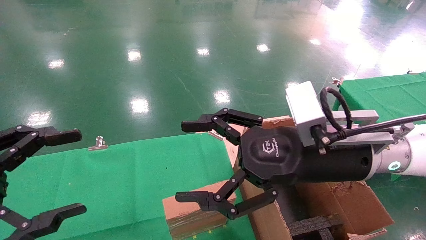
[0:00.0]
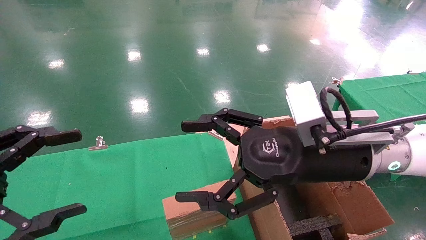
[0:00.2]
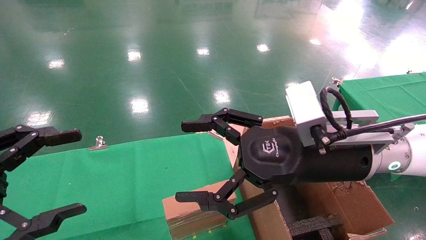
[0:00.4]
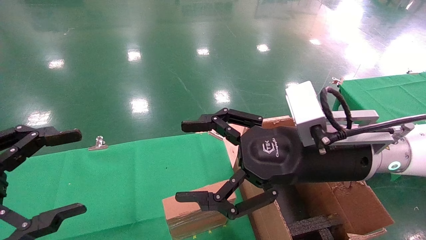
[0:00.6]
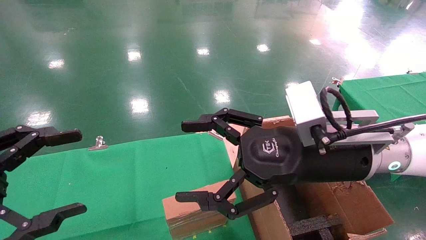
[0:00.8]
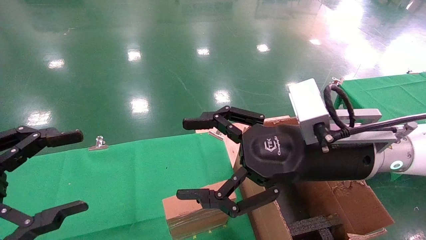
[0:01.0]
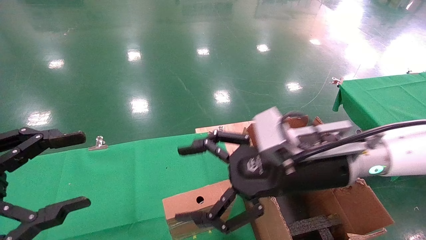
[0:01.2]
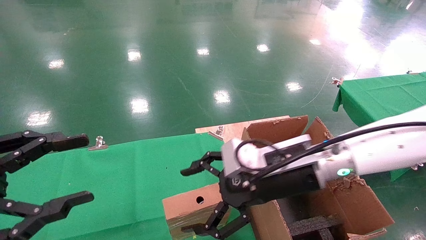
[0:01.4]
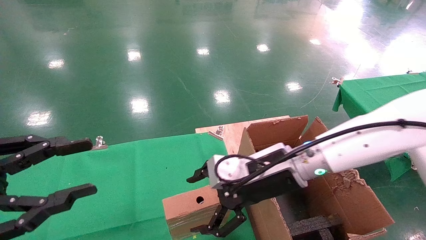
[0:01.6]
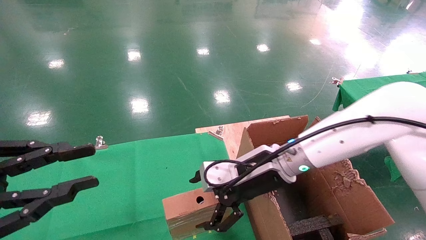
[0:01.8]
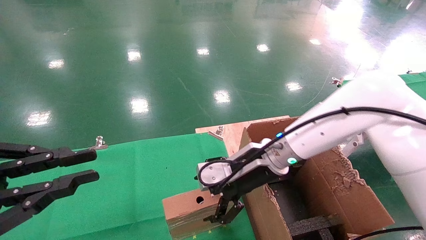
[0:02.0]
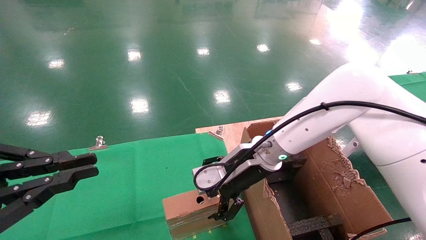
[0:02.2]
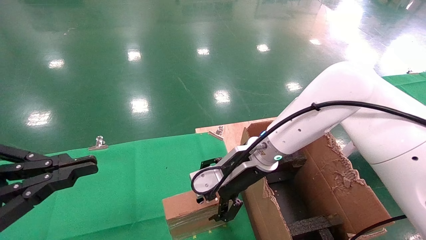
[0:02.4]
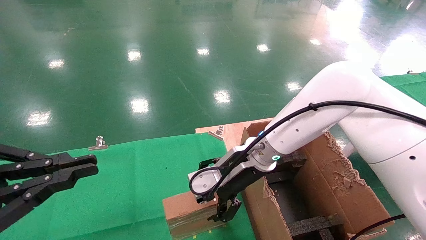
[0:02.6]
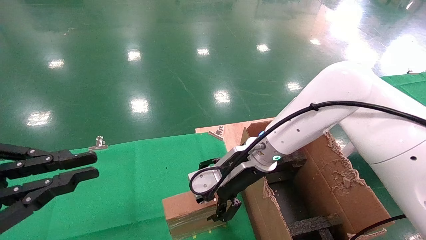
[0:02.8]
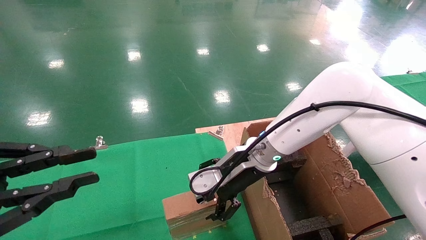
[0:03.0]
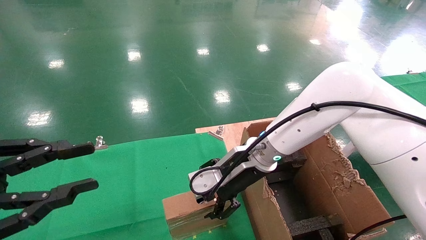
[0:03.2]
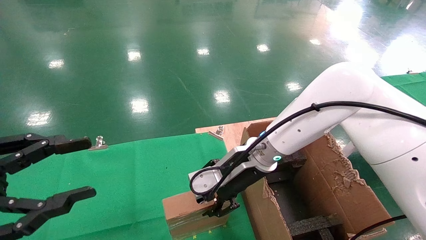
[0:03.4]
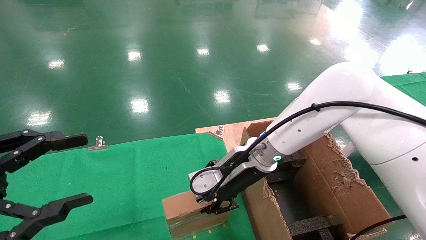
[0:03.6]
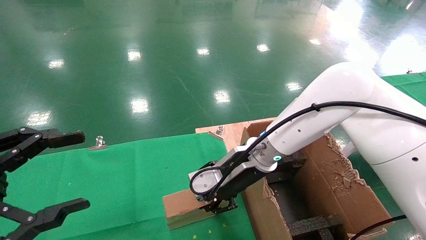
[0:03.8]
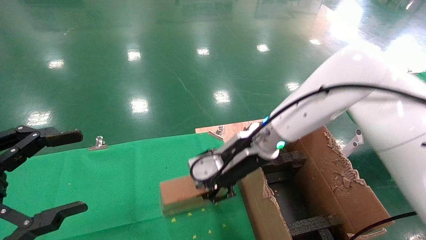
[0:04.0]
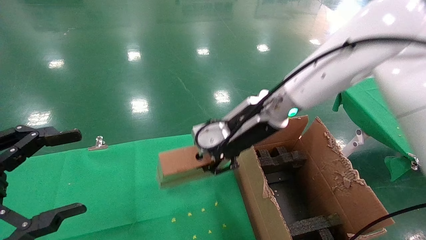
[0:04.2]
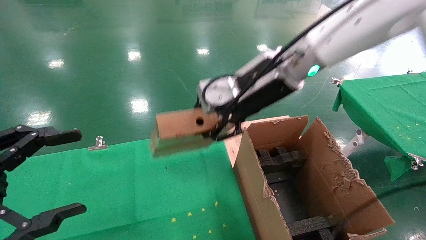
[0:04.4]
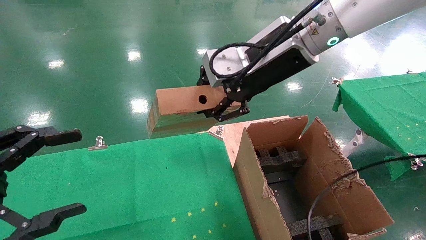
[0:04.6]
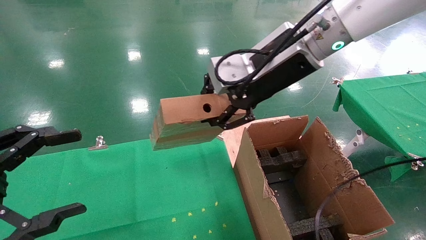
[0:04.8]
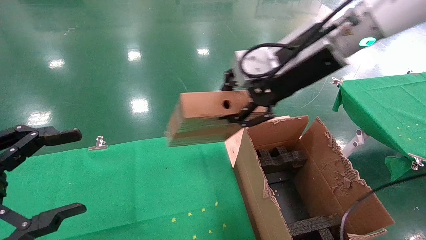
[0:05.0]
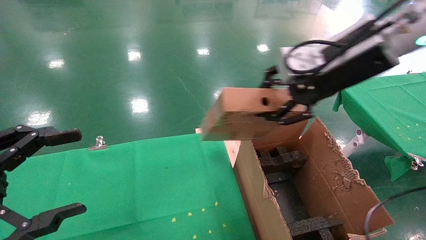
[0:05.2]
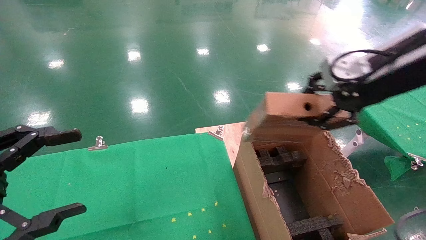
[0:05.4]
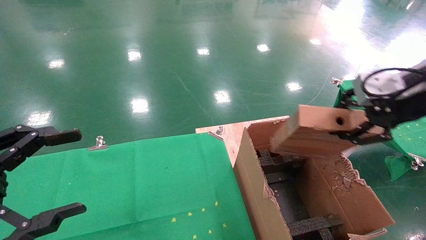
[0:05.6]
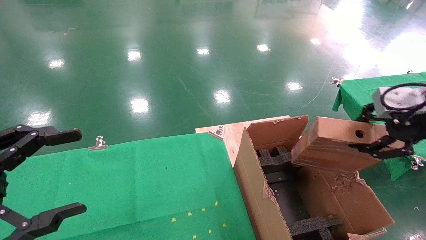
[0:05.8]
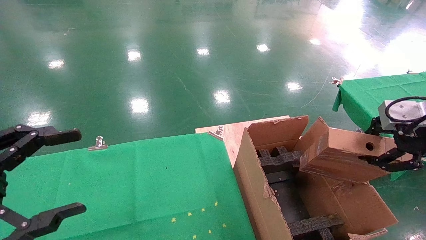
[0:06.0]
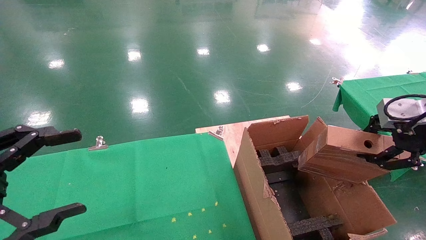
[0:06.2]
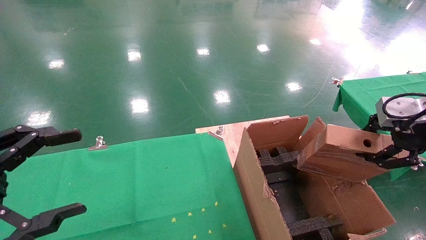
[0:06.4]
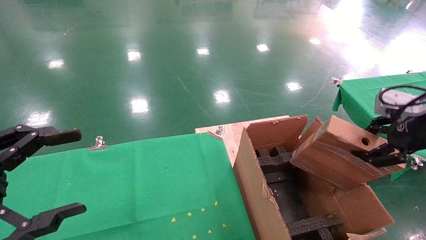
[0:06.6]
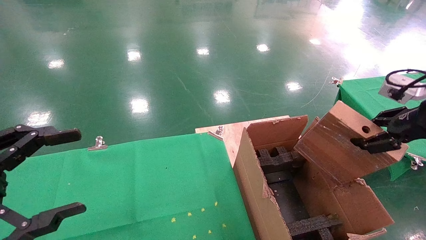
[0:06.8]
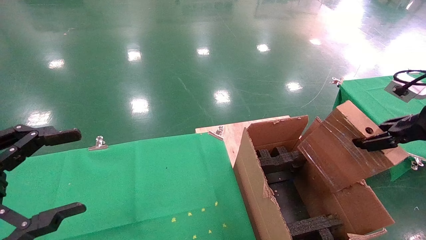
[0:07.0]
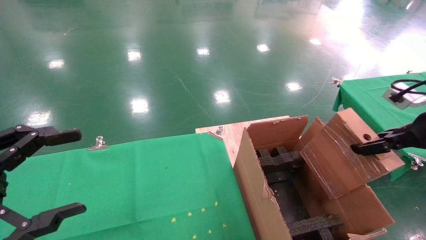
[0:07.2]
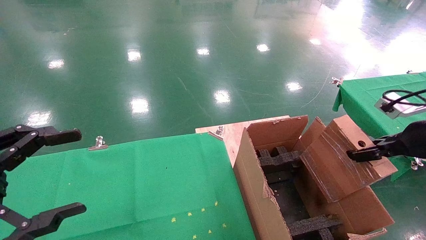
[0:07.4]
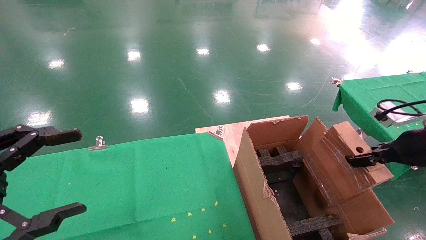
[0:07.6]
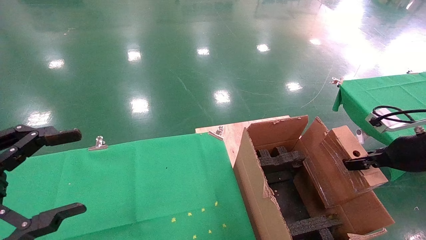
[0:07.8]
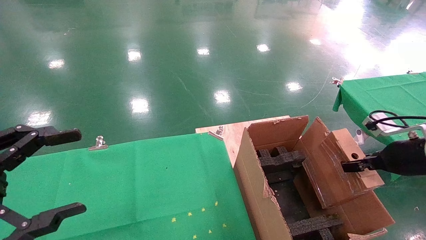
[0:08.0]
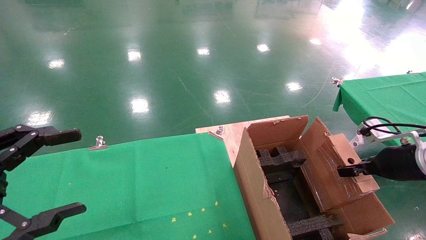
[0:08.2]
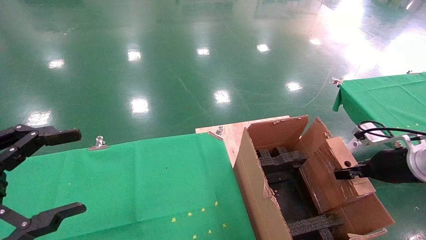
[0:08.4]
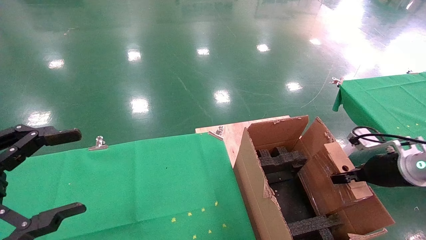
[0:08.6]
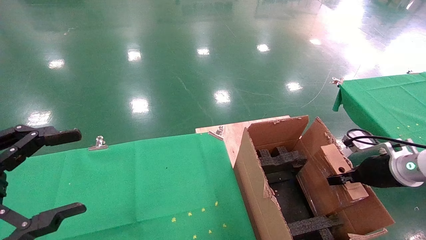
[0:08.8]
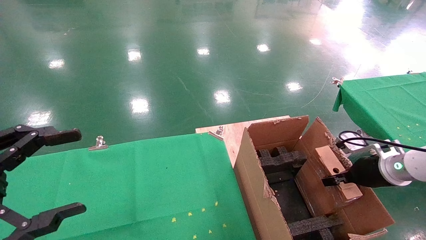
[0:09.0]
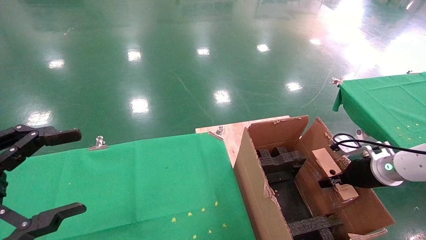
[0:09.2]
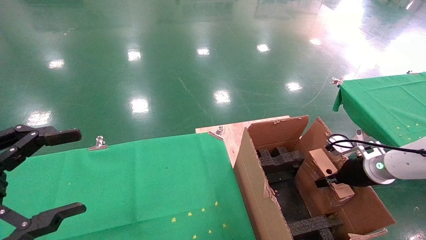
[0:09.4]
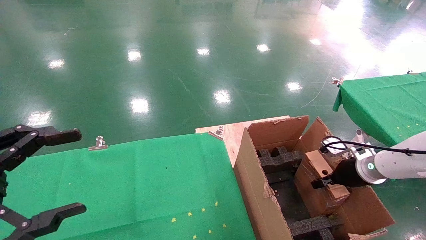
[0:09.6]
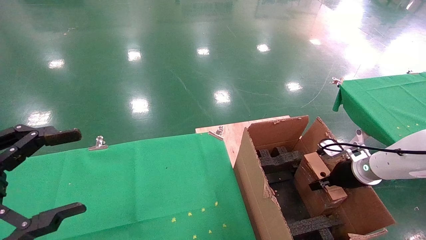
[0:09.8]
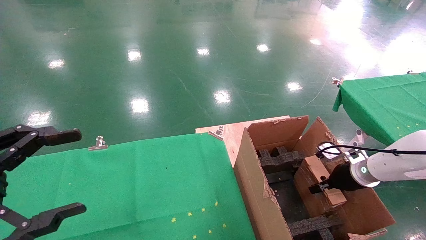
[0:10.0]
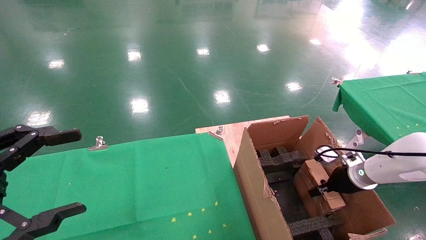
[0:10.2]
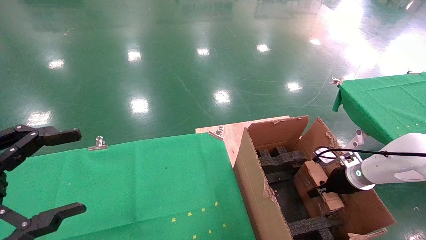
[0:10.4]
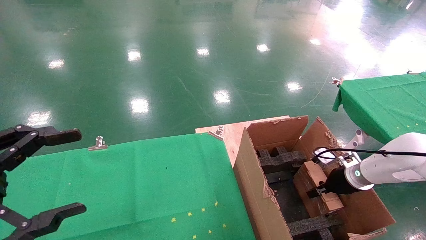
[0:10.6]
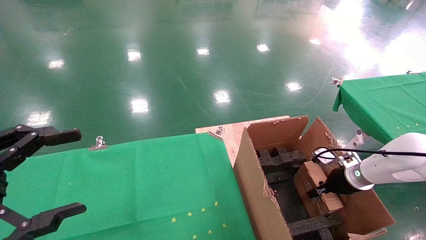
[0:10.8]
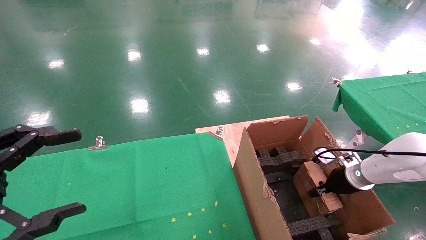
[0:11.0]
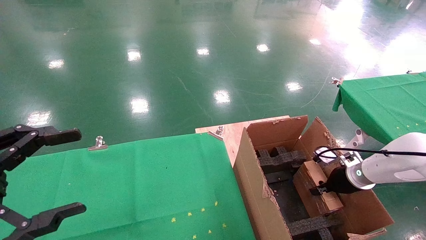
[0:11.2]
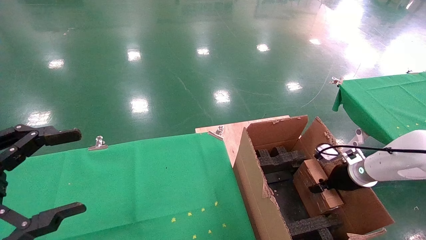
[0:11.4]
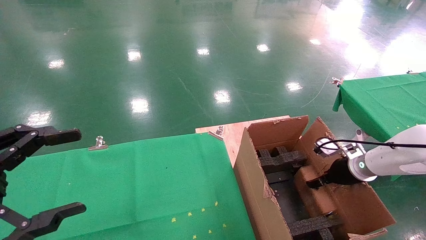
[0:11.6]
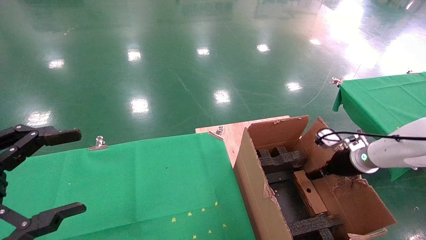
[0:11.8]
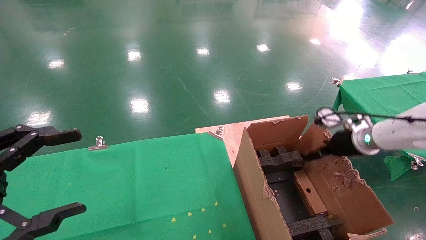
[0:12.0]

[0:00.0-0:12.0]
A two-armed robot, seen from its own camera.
Task of the whole recording: using a robotic arm to pick up a cardboard box and palace it the carton.
Step, 0:01.2 to 0:03.8: Pick up the mouse and the power cord paper box.
Step, 0:04.0 to 0:11.8: Place the mouse and the power cord paper box into the container.
0:00.0 to 0:01.6: The right gripper heads forward and downward, covering about 10 cm. Meanwhile the left gripper closes its fingers.
0:01.6 to 0:03.0: The left gripper closes; the right gripper shifts some 5 cm forward.
0:03.0 to 0:04.4: The left gripper opens its fingers. Meanwhile the right gripper is displaced upward by about 15 cm, and closes up.
0:04.4 to 0:06.0: The right gripper goes some 30 cm to the right and backward.
0:06.0 to 0:07.6: The right gripper shifts some 10 cm downward.
0:07.6 to 0:09.0: The right gripper travels downward and forward by some 10 cm.
0:09.0 to 0:10.4: The right gripper goes roughly 10 cm downward and forward.
0:10.4 to 0:12.0: The right gripper shifts about 10 cm upward, and opens up.

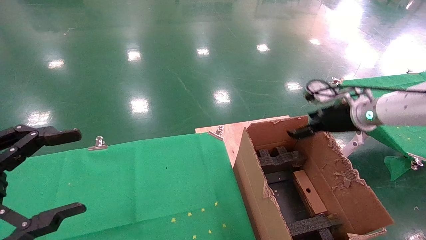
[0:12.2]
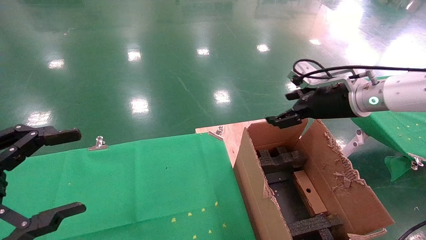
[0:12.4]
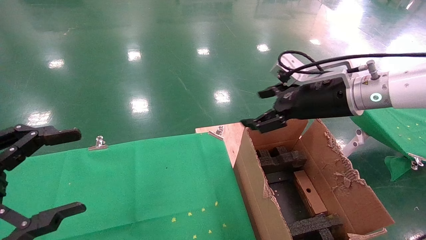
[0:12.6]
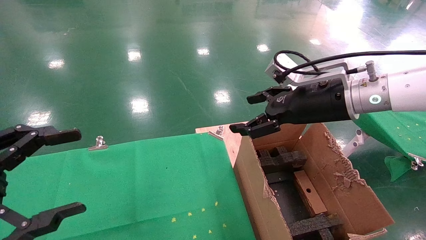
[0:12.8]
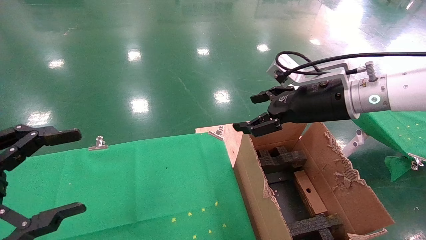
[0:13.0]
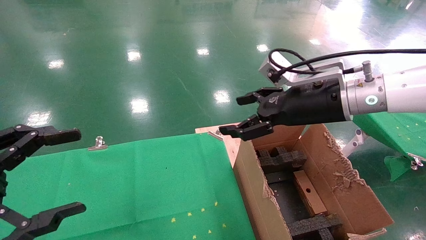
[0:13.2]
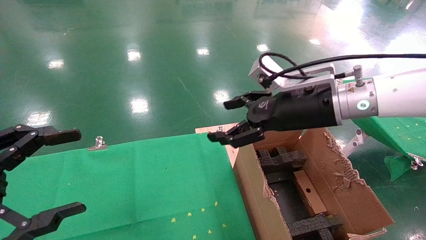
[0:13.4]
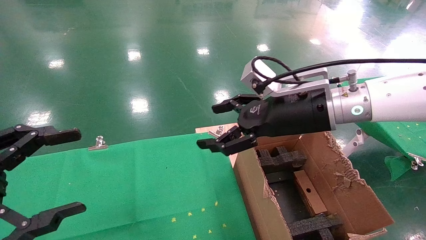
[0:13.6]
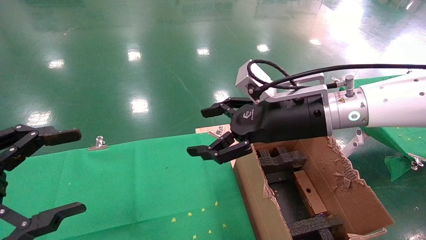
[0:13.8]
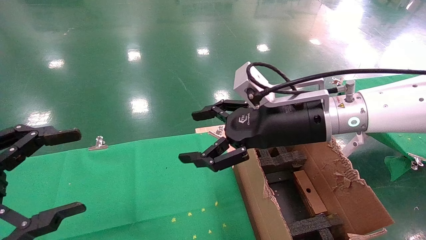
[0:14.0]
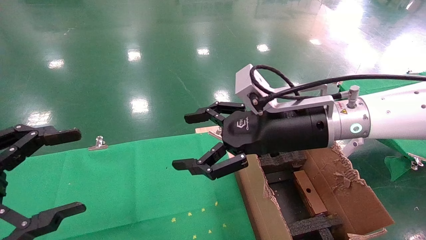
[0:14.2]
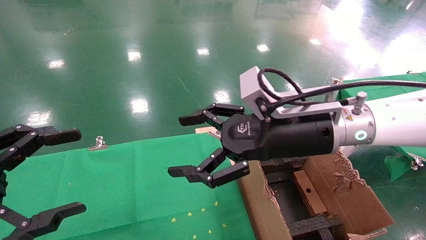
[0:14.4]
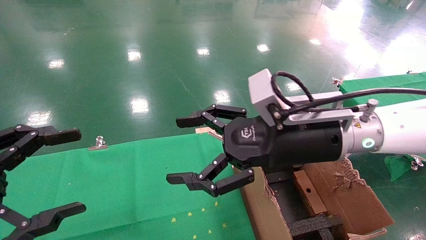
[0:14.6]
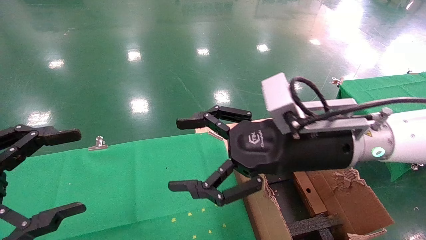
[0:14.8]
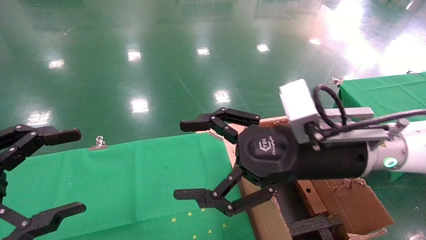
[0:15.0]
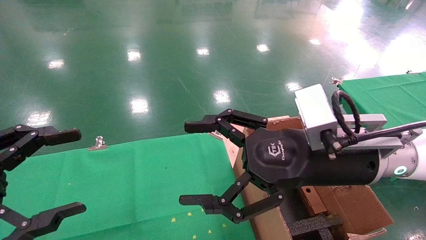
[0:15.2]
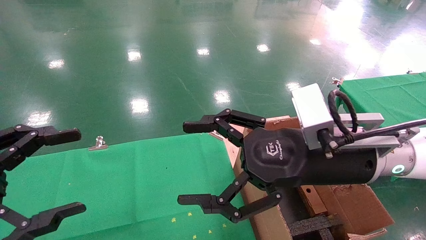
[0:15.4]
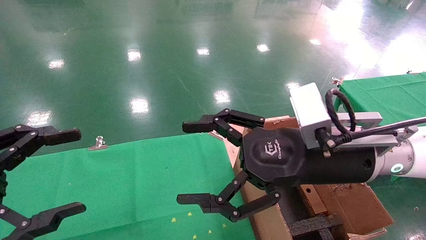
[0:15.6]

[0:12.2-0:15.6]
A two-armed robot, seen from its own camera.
Task of the whole recording: using a robotic arm to pick up a cardboard box and palace it the carton.
0:12.2 to 0:13.8: The right gripper goes some 20 cm to the left and backward.
0:13.8 to 0:15.6: The right gripper shifts roughly 5 cm backward.
